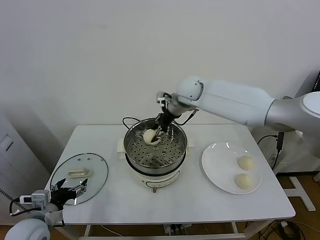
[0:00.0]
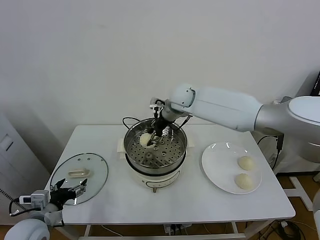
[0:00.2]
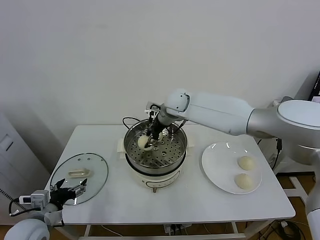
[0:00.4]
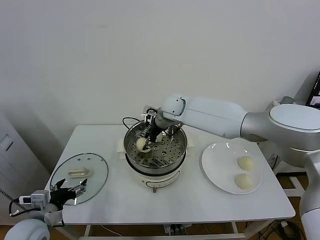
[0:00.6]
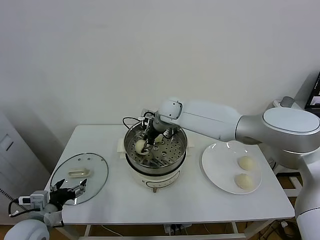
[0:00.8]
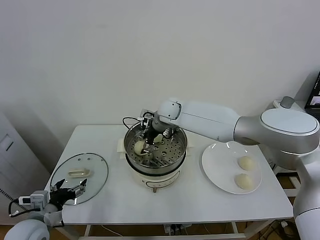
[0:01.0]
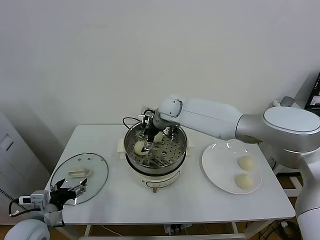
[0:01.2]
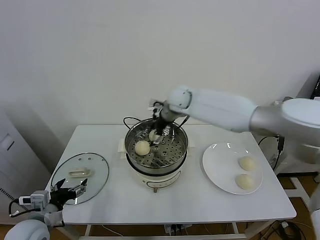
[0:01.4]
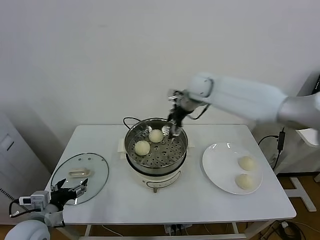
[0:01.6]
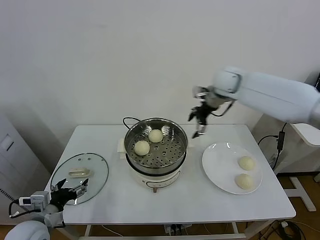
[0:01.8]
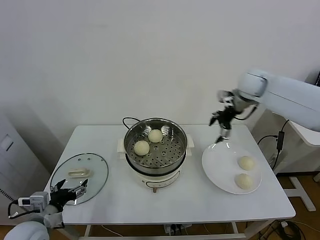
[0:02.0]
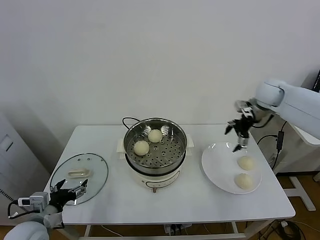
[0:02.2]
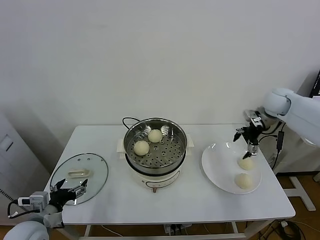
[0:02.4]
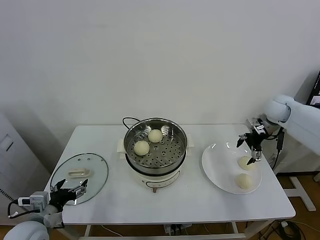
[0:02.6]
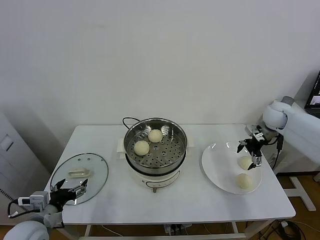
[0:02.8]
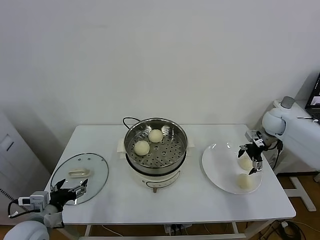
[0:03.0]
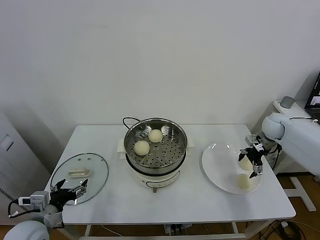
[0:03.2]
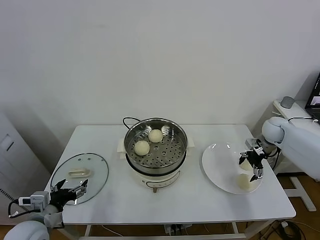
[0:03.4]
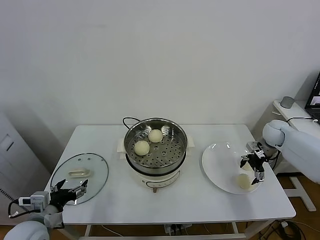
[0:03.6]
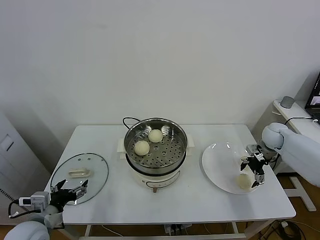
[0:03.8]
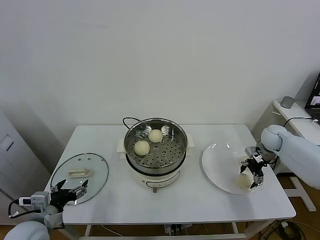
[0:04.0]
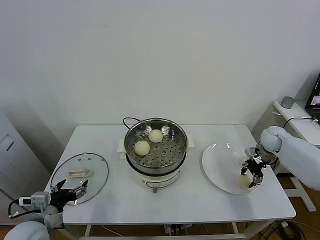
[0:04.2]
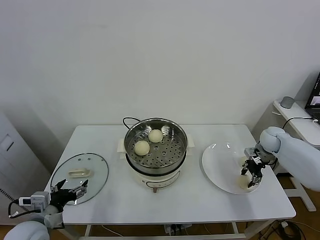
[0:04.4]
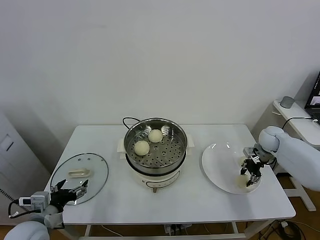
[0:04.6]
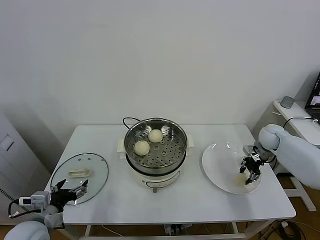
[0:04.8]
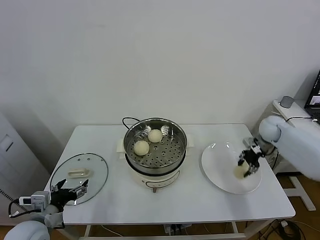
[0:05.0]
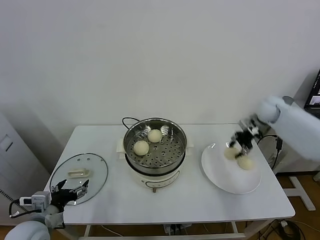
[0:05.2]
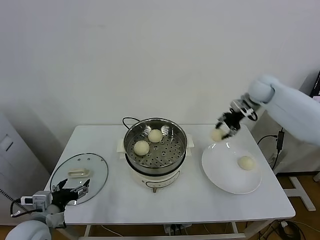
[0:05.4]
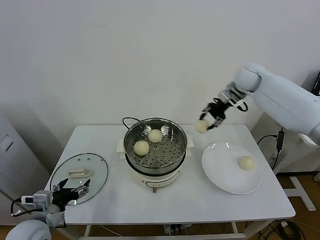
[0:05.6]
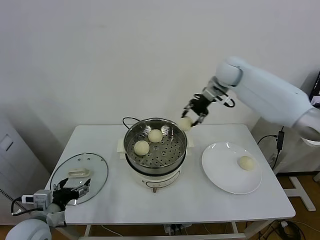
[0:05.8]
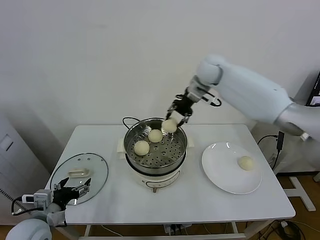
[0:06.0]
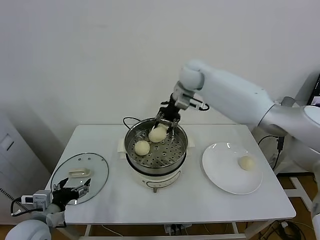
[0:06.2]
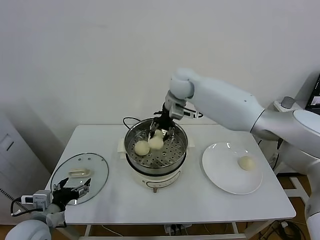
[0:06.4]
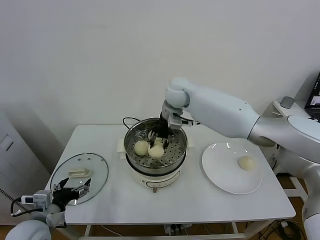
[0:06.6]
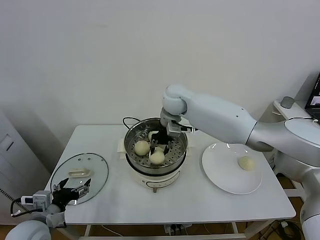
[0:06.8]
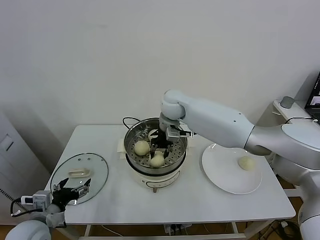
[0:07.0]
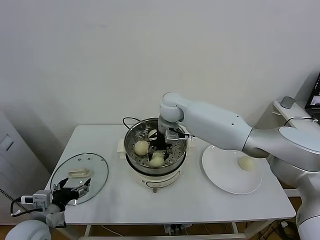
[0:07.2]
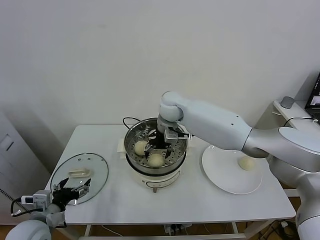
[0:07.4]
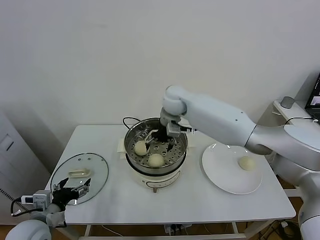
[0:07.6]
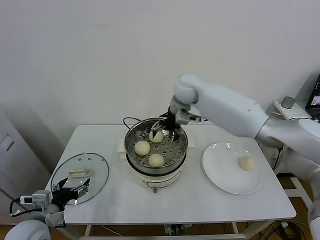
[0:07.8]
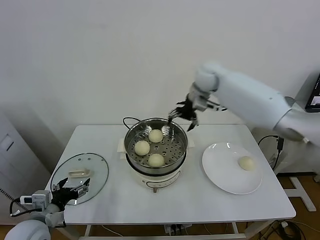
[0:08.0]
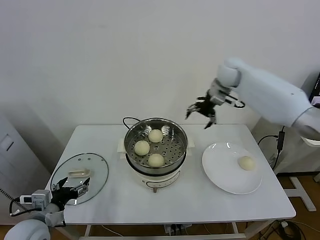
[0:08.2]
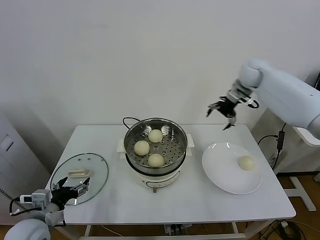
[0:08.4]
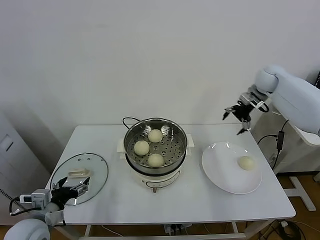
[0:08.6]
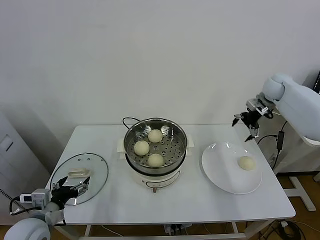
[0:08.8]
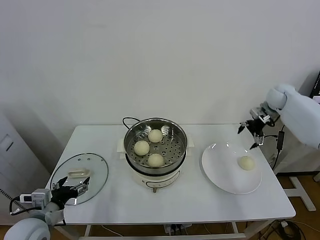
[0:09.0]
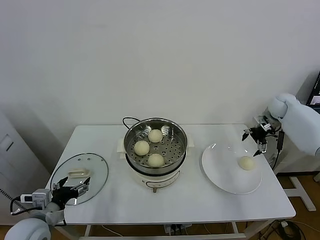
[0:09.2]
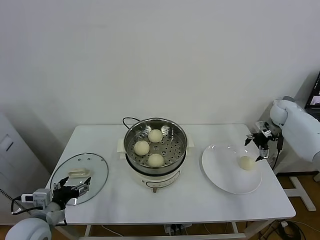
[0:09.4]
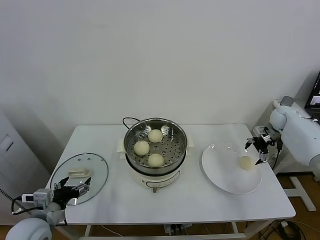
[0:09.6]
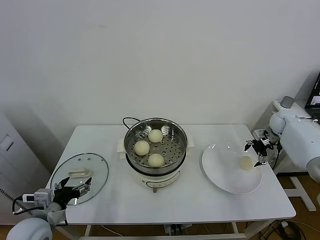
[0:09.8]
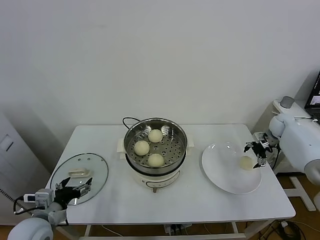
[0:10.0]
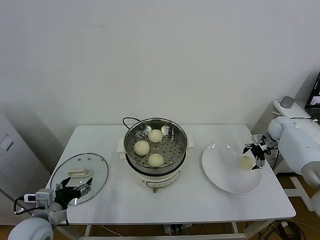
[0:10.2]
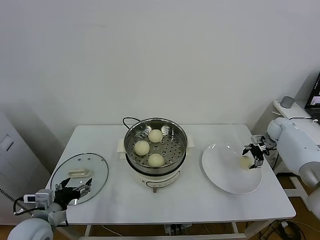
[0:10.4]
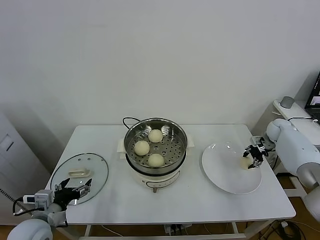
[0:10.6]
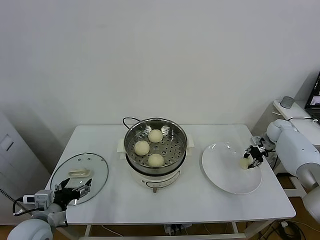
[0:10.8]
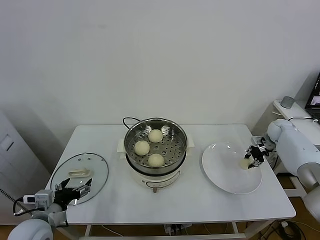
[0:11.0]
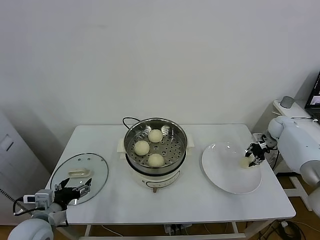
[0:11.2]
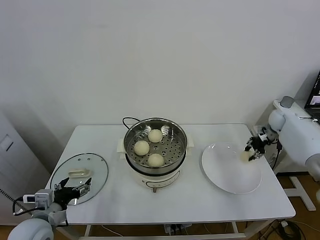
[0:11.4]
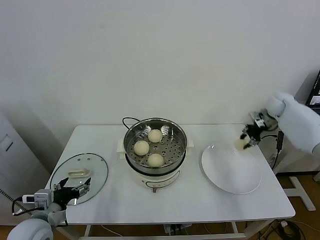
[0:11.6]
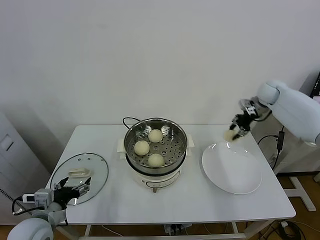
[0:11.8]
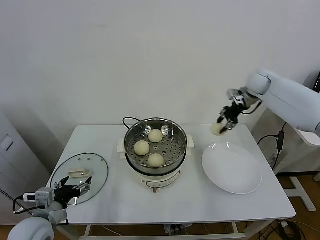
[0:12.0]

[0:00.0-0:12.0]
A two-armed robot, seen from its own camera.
Task of the whole recording: take steamed baozi put them in steamer.
Step, 0:01.4 to 0:04.6: Grasp the baozi in the plate with right gripper.
Step, 0:04.8 to 0:07.4: Place the baozi on the steamer with right gripper.
Step, 0:07.8 to 0:11.0: Grasp the baozi in the plate with right gripper.
0:00.0 to 0:01.6: The right gripper shifts roughly 10 cm to the right, and opens its fingers.
0:01.6 to 0:03.0: The right gripper goes roughly 30 cm to the right and downward.
0:03.0 to 0:04.4: The right gripper is displaced downward by some 5 cm, and closes.
0:04.4 to 0:06.0: The right gripper goes roughly 40 cm to the left and upward.
0:06.0 to 0:07.6: The right gripper moves to the left and downward, approximately 10 cm, and opens up.
0:07.6 to 0:09.0: The right gripper travels to the right by about 40 cm.
0:09.0 to 0:10.4: The right gripper heads downward, covering some 15 cm.
0:10.4 to 0:12.0: The right gripper goes some 25 cm upward and to the left, and closes up.

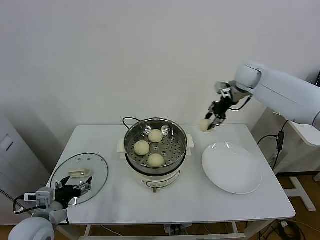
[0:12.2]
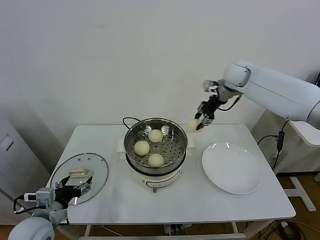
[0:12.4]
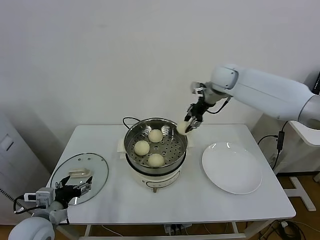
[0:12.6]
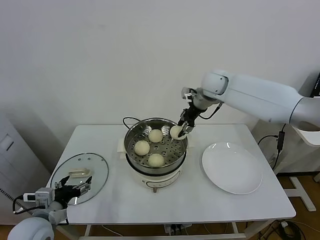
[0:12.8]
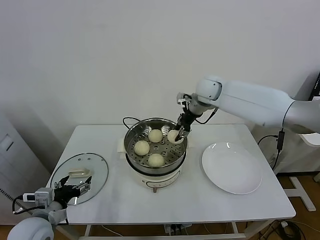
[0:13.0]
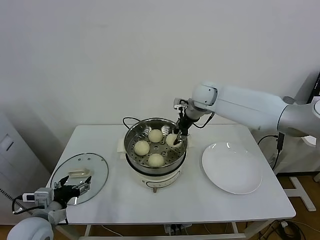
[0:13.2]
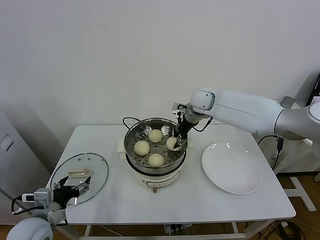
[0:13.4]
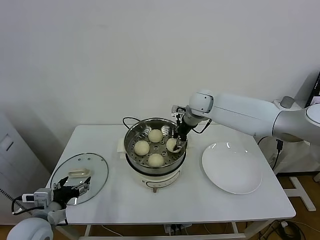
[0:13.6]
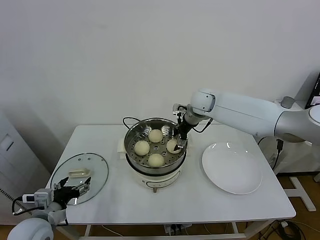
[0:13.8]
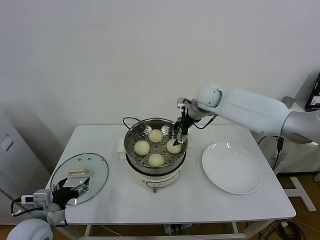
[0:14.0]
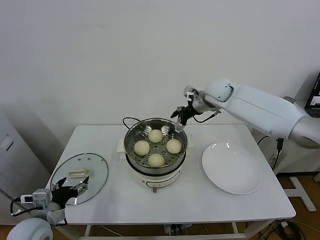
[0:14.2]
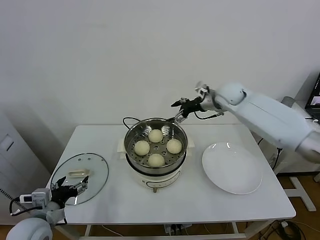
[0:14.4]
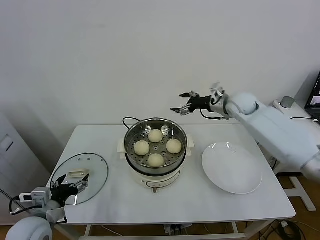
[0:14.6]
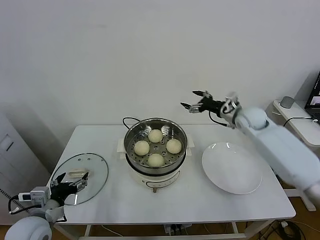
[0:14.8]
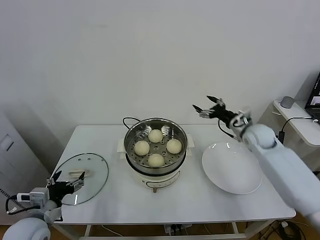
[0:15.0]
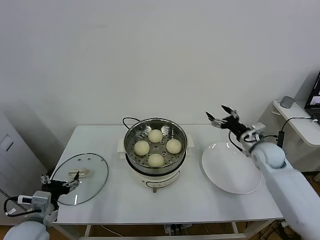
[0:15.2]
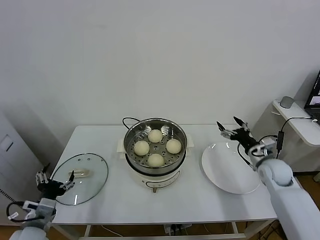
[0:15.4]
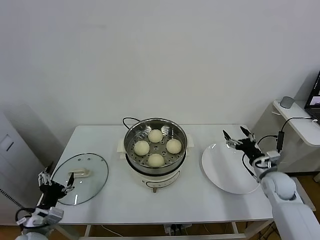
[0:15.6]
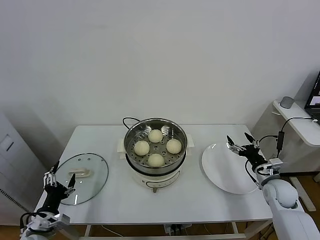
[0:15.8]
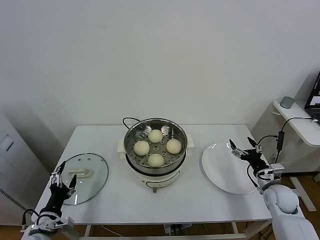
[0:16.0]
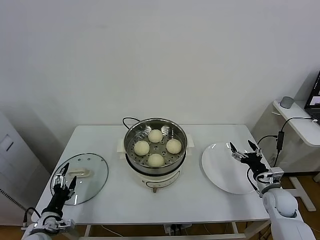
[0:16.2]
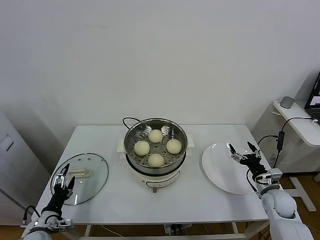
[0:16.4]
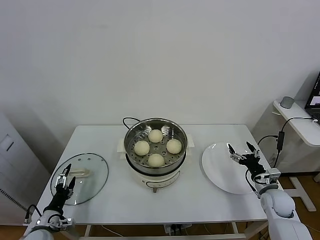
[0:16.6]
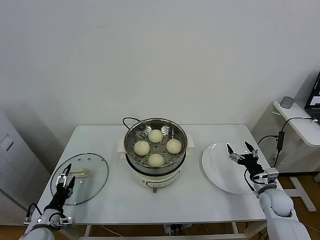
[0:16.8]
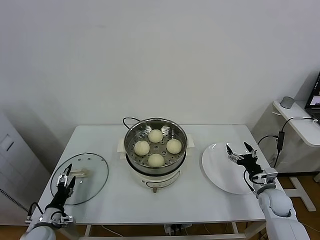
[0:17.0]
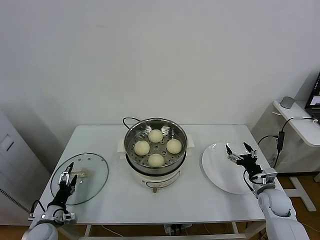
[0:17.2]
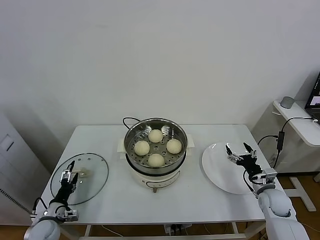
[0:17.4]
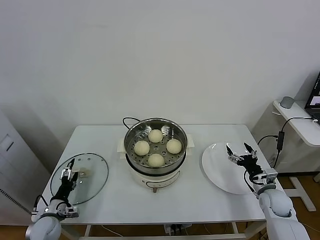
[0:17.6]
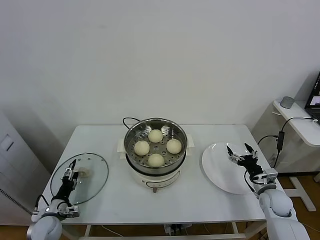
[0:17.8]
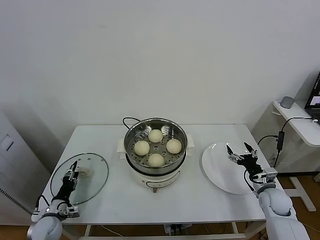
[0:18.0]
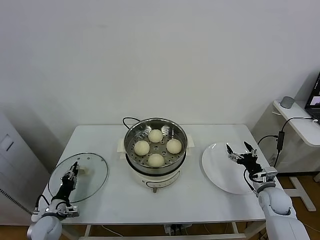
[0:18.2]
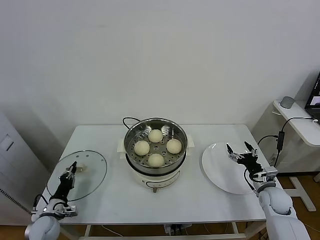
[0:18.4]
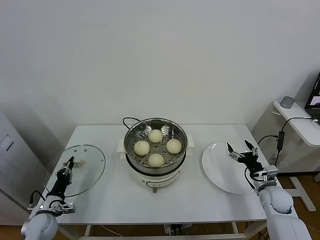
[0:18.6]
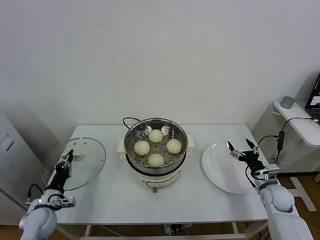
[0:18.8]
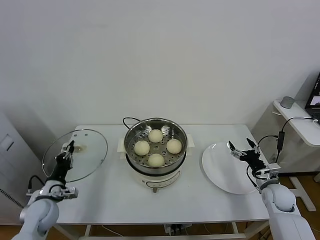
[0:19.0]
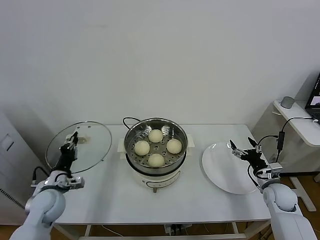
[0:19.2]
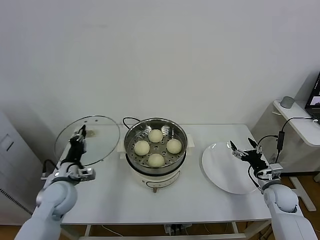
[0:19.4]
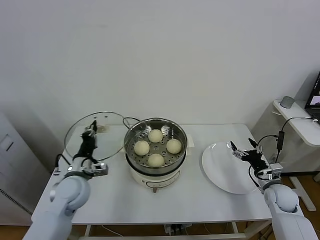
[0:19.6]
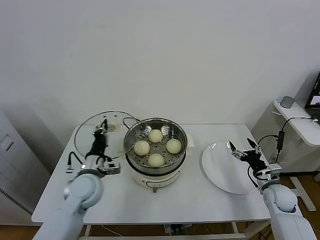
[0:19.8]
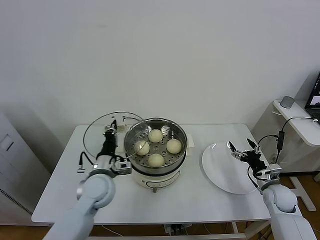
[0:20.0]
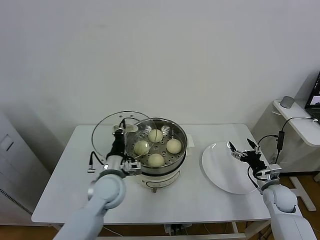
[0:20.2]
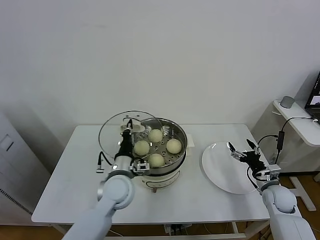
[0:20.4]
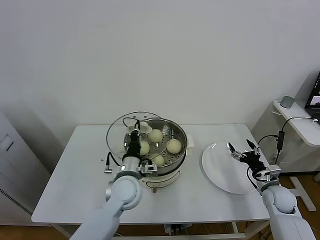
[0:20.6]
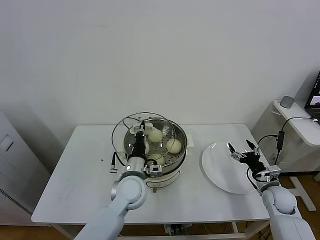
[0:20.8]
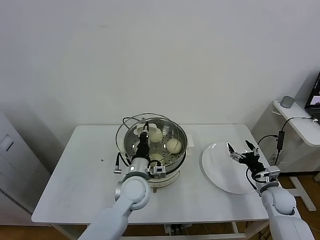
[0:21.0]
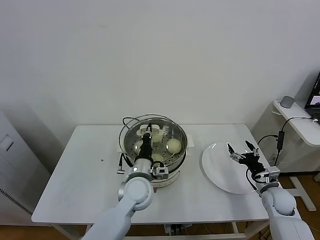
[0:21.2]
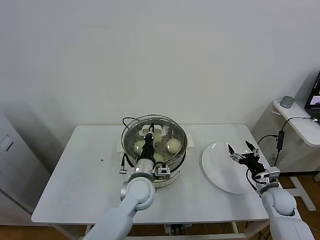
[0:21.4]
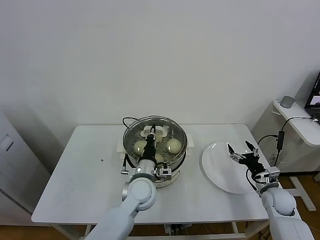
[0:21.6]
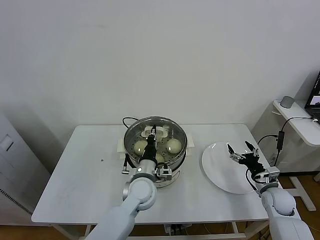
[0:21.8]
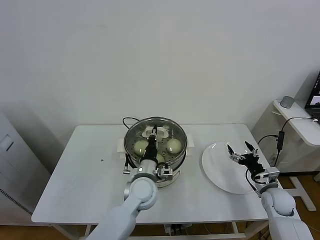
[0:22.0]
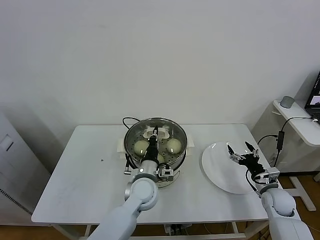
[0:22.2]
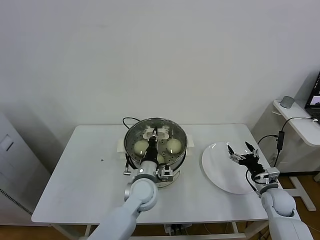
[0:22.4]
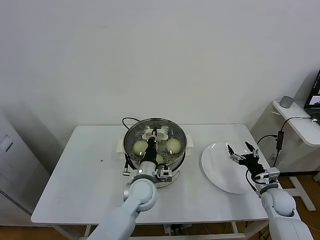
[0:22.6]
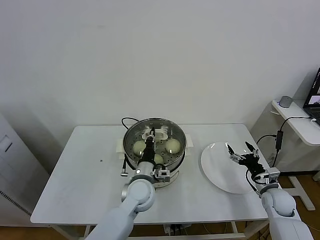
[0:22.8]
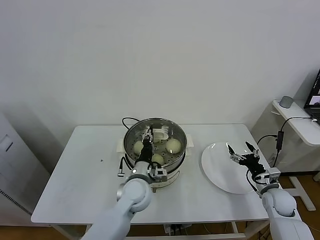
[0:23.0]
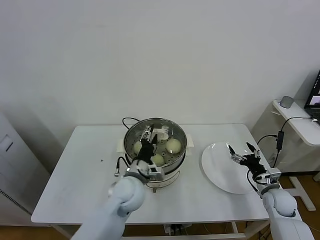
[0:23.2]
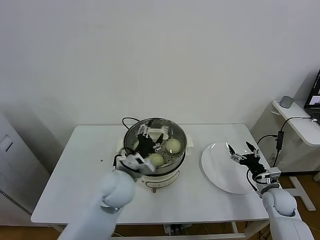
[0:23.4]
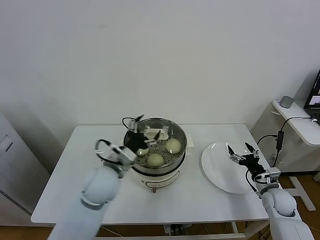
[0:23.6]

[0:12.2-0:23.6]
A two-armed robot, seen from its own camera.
Task of the whole recording: take steamed baozi put them in steamer.
Step, 0:12.2 to 0:13.8: Place the baozi on the steamer with right gripper.
Step, 0:14.0 to 0:18.4: Grasp the pot lid with left gripper.
Step, 0:18.6 to 0:23.0: Place the pot lid on the steamer with left gripper.
0:12.2 to 0:13.6: The right gripper travels to the left and downward by roughly 15 cm.
0:13.6 to 0:15.0: The right gripper shifts about 25 cm to the right, downward and backward, and opens.
0:15.0 to 0:16.4: The left gripper travels downward by about 15 cm. Meanwhile the right gripper goes roughly 20 cm downward and backward.
0:16.4 to 0:17.8: The left gripper goes about 10 cm forward and downward.
0:17.8 to 0:19.4: The left gripper shifts about 20 cm upward and to the right, and closes.
0:19.4 to 0:20.8: The left gripper moves to the right, roughly 20 cm.
0:20.8 to 0:22.2: There are only small adjustments of the grippers.
0:22.2 to 0:23.6: The left gripper moves to the left and upward, some 15 cm, and opens.
